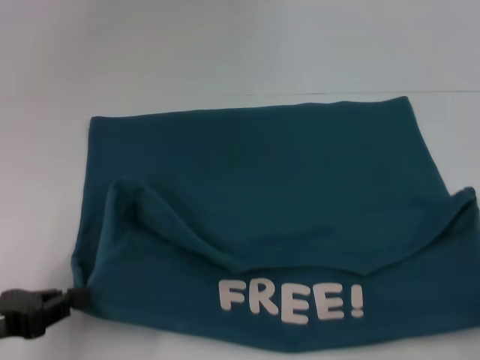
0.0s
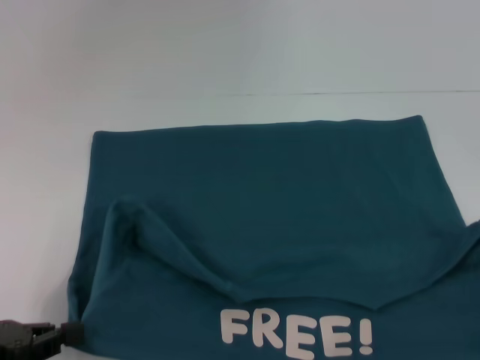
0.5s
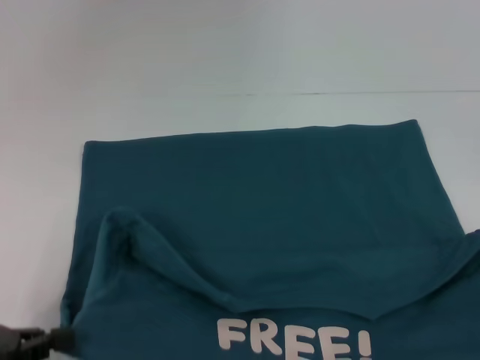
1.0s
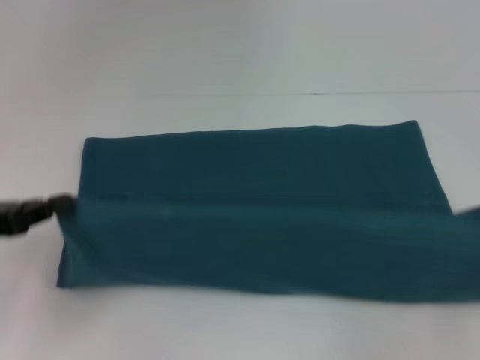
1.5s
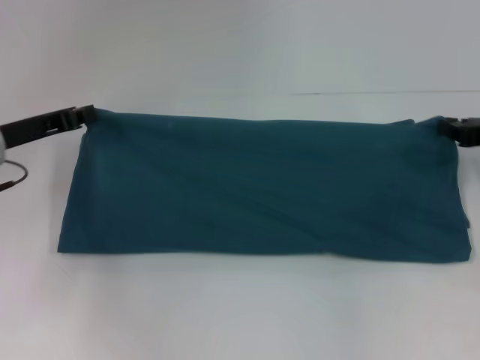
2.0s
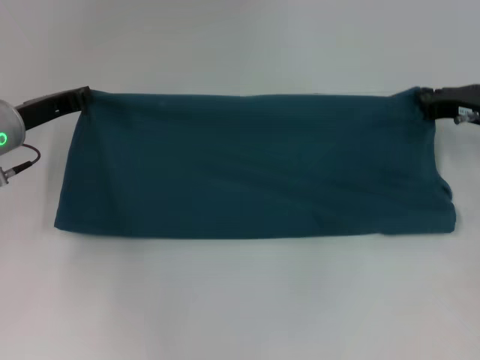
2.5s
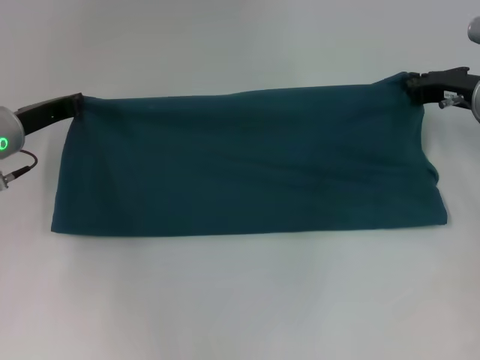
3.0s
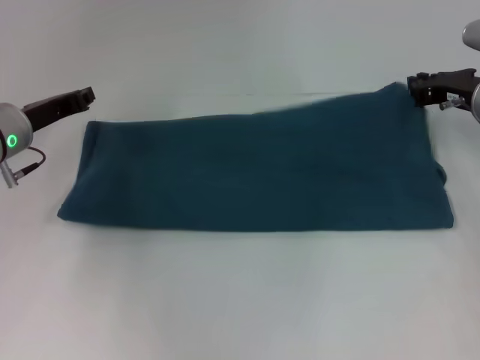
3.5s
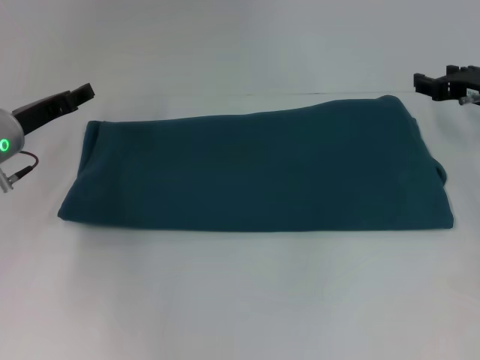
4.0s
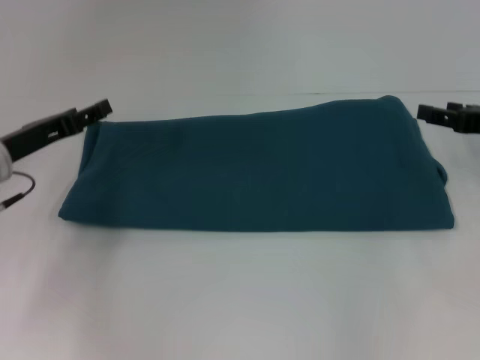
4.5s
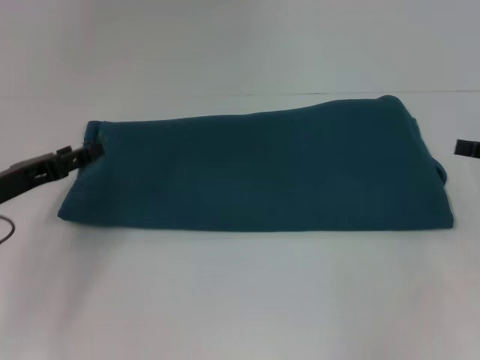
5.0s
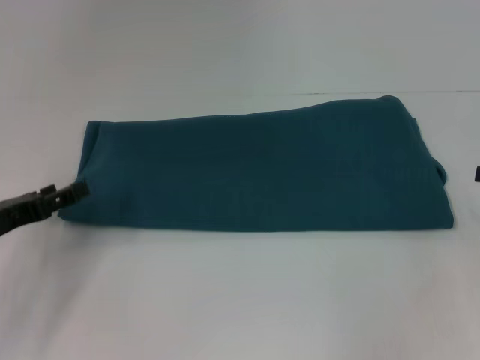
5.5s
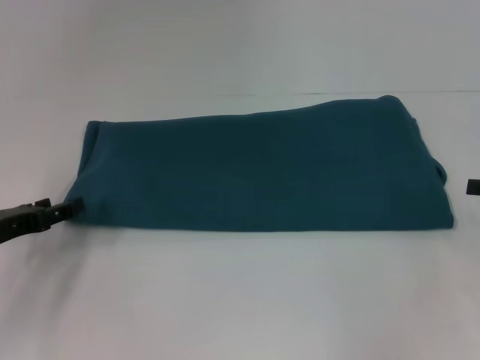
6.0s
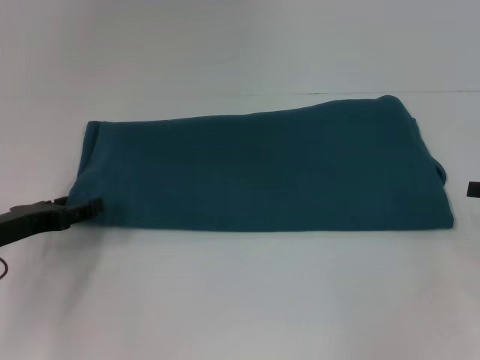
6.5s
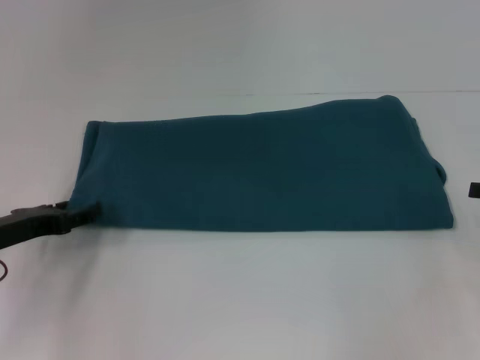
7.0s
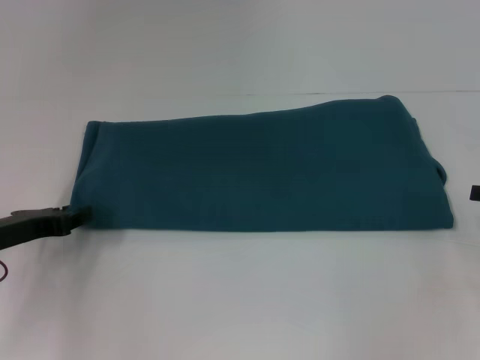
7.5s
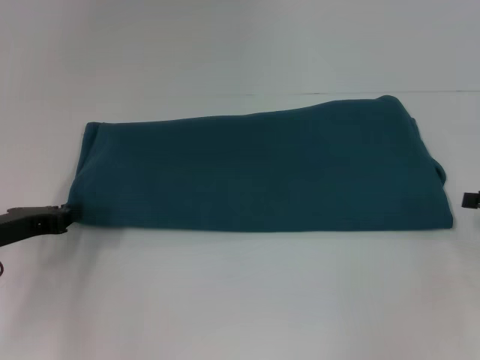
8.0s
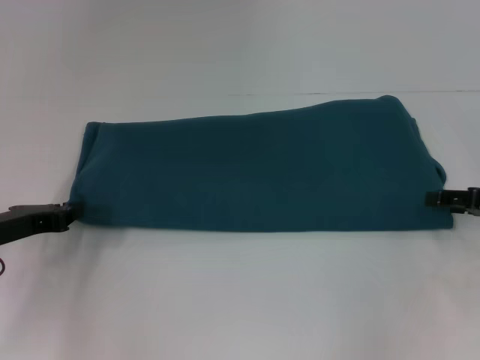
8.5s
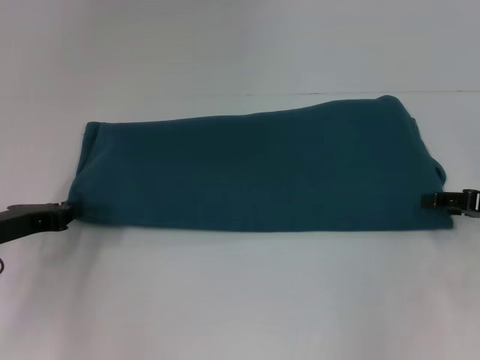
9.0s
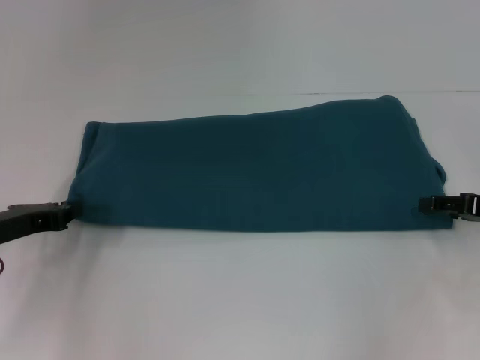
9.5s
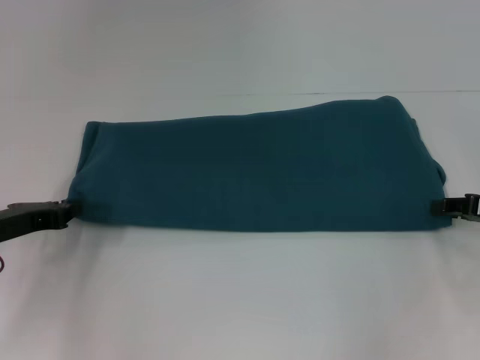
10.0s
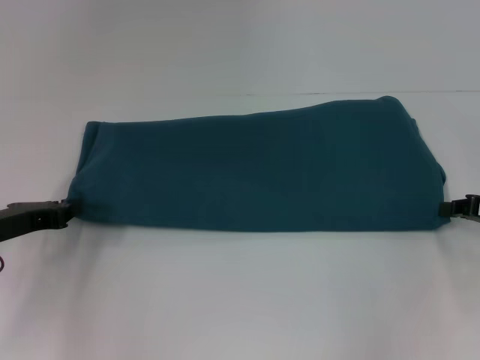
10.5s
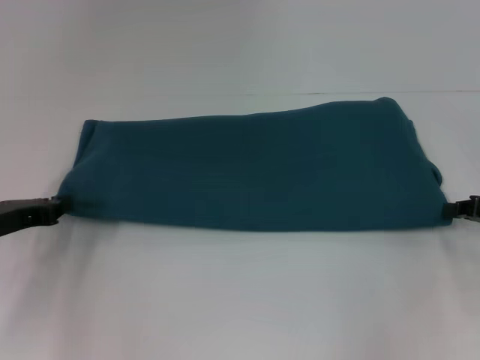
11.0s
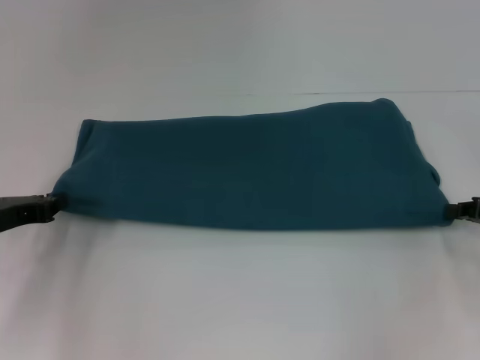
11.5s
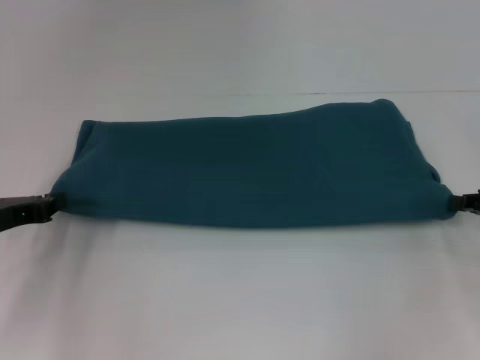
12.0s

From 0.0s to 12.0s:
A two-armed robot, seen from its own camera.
Step, from 1.0s to 3.5s: Fold the clothes to the right.
From 0.0s to 2.0s: The two grippers go approximately 15 cm forward.
From 2.0s to 4.0s: The right gripper moves forward, approximately 5 cm, and opens its fingers. The left gripper opens its fingers.
From 4.0s to 6.0s: The right gripper shifts roughly 15 cm backward and to the right; the left gripper is displaced backward by about 10 cm.
From 6.0s to 8.0s: The left gripper closes its fingers.
From 8.0s to 10.0s: The grippers stay close to where they were, moving slightly.
From 10.0s to 12.0s: The right gripper closes up.

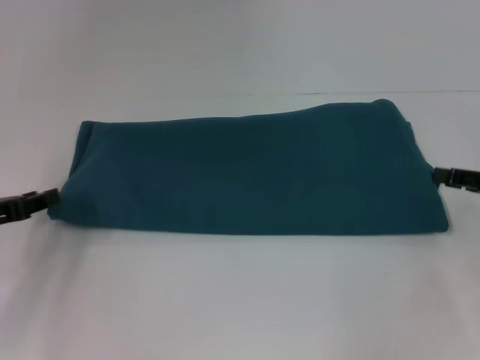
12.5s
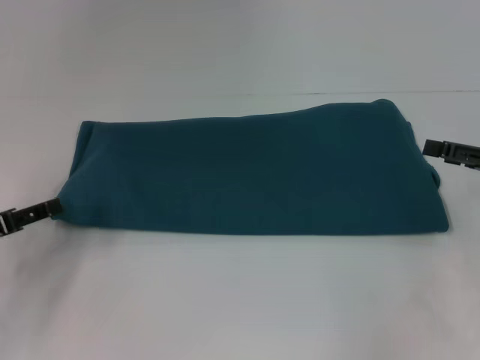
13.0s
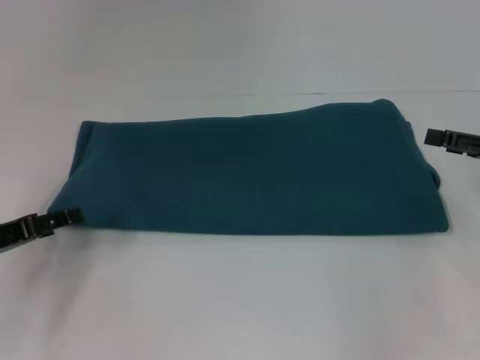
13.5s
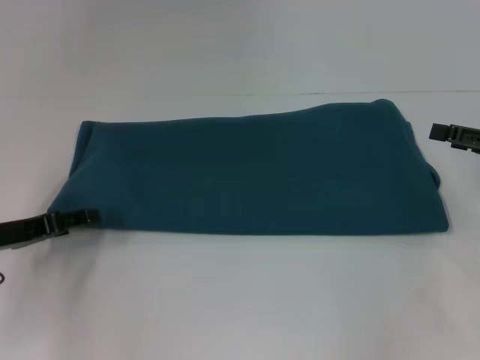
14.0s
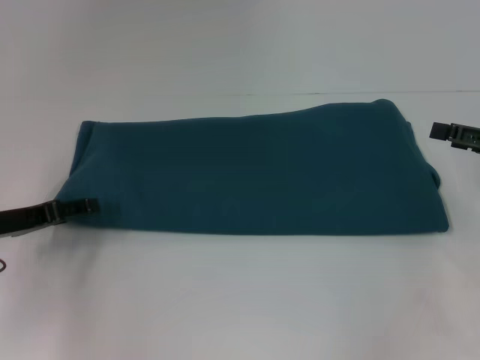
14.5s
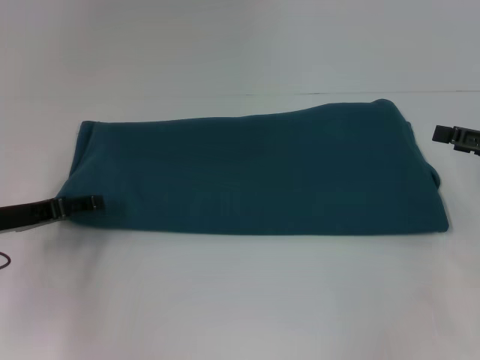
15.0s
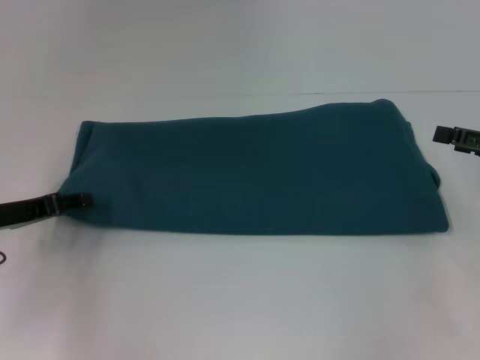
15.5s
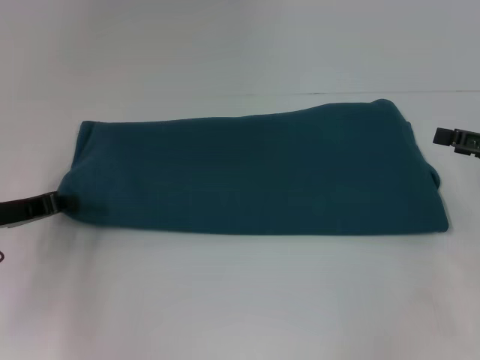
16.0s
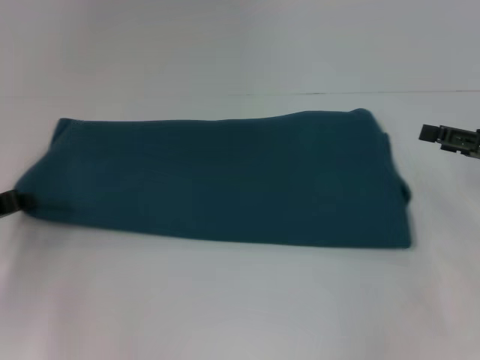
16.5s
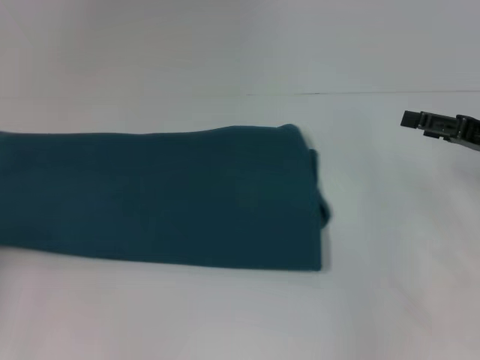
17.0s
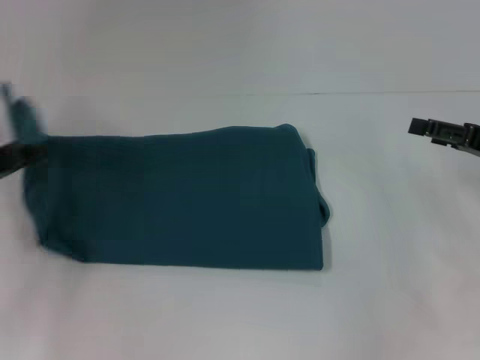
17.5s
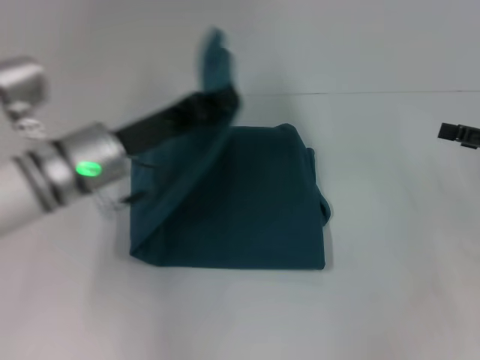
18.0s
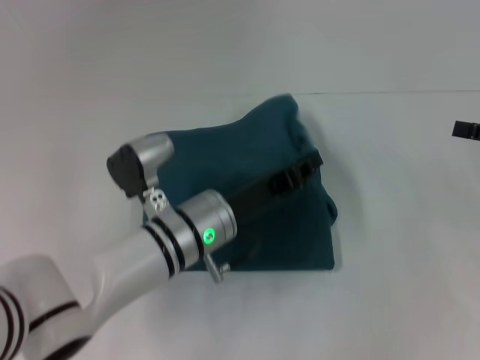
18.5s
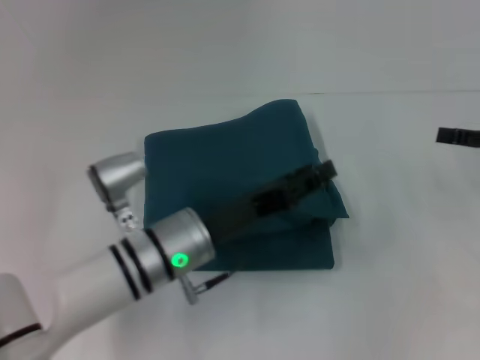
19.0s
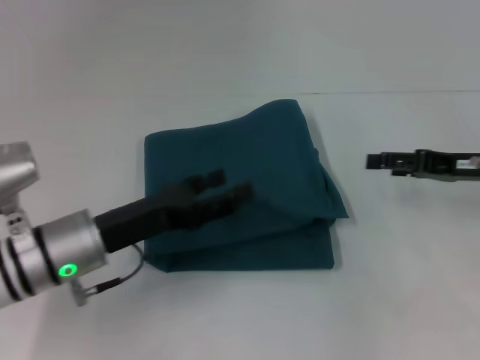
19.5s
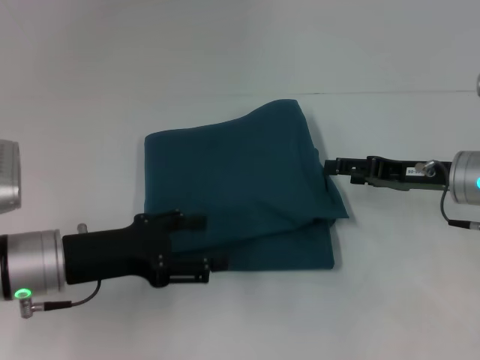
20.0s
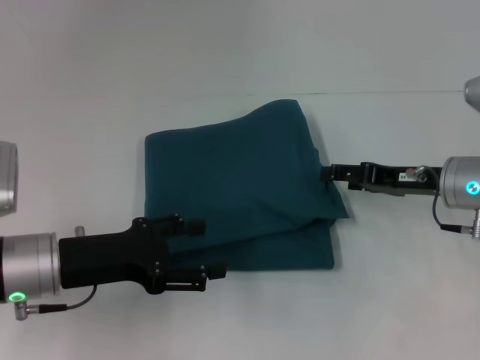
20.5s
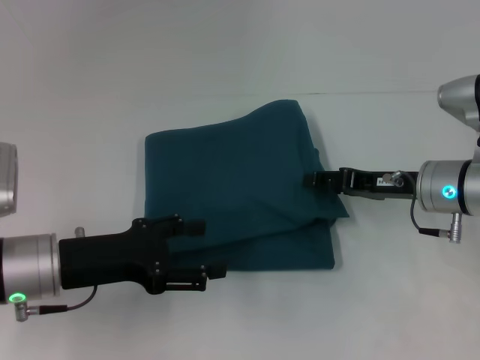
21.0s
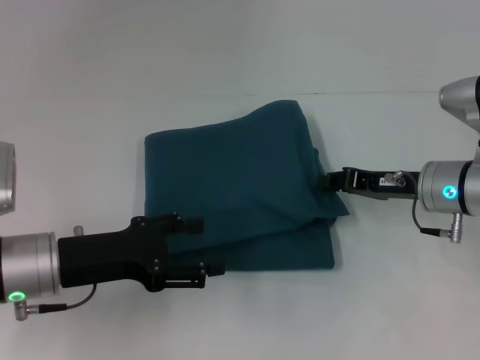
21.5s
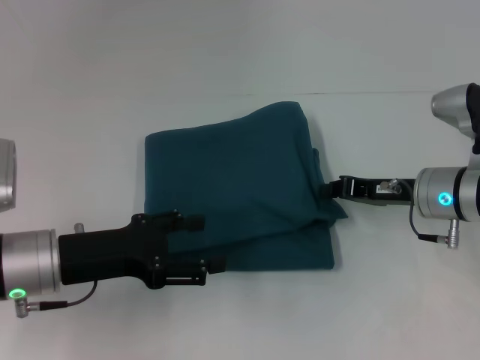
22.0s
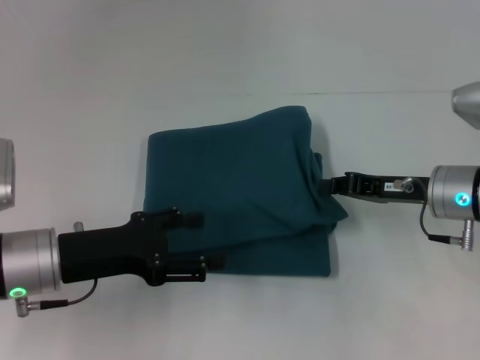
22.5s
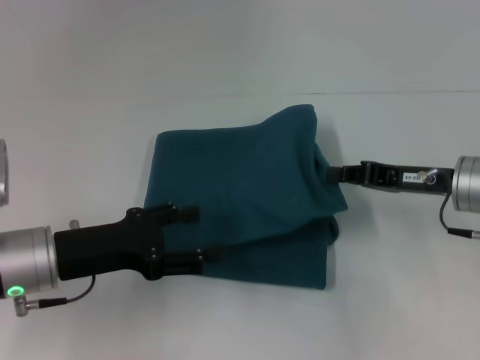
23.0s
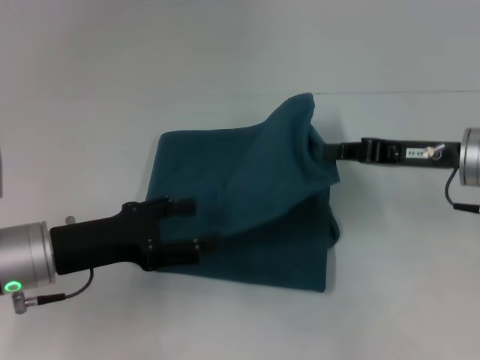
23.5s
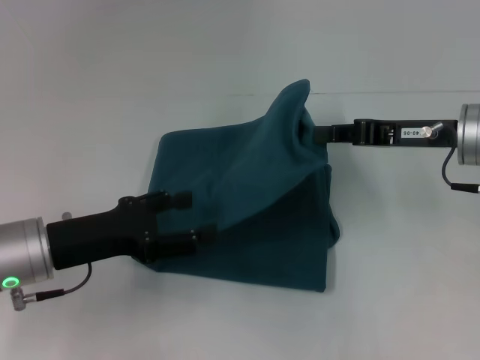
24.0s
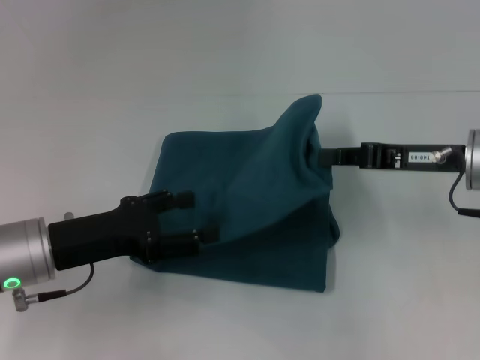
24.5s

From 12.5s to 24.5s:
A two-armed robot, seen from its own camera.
Step, from 12.5s to 18.5s: Fold the clothes to the left.
From 12.5s to 14.5s: The right gripper opens. Meanwhile the left gripper opens up.
From 14.5s to 16.5s: The left gripper closes up.
From 16.5s to 18.5s: The left gripper heads to the right, covering approximately 30 cm.
From 18.5s to 20.5s: The right gripper travels to the left and downward by roughly 15 cm, while the left gripper moves to the left, about 15 cm, and opens up.
From 20.5s to 22.5s: The right gripper closes.
From 22.5s to 24.5s: The right gripper heads upward, covering about 5 cm.

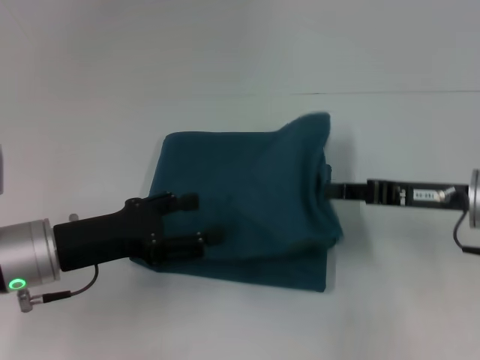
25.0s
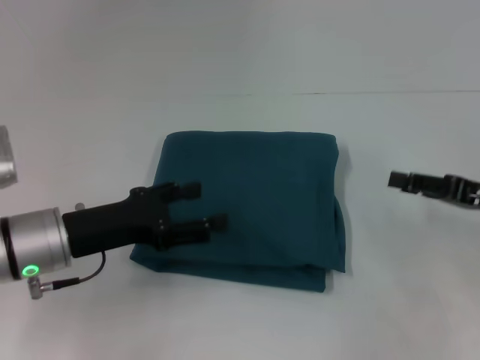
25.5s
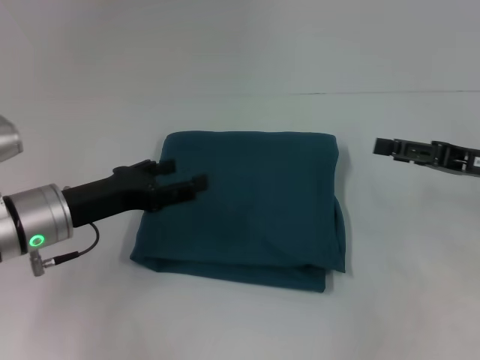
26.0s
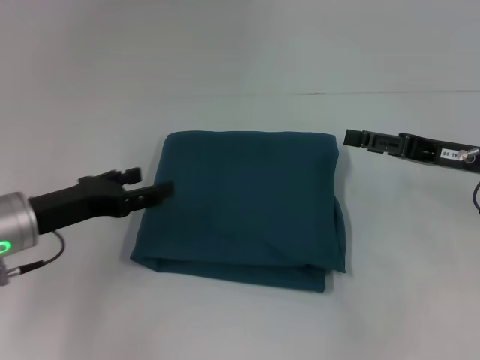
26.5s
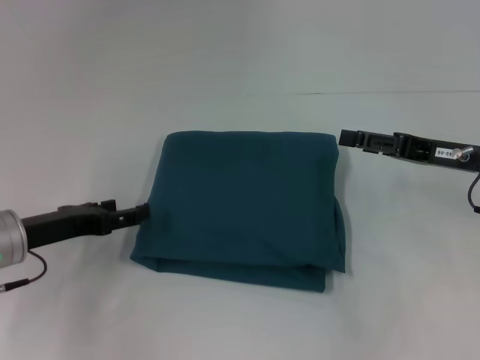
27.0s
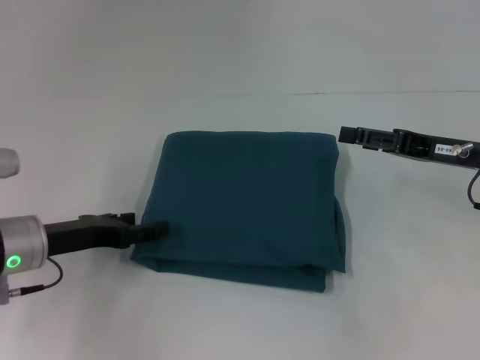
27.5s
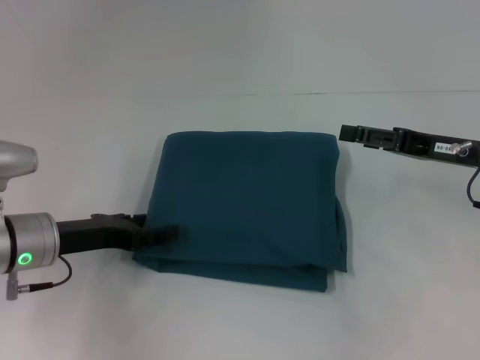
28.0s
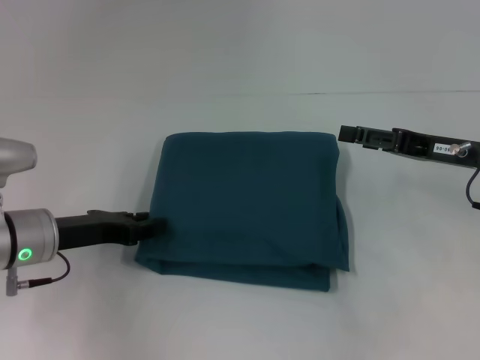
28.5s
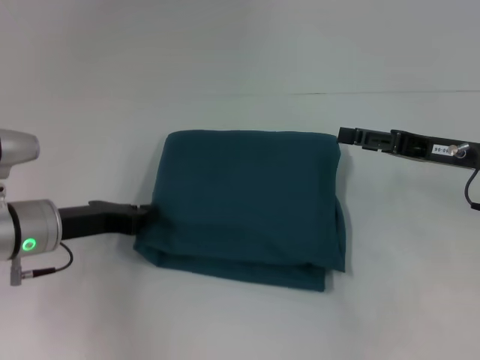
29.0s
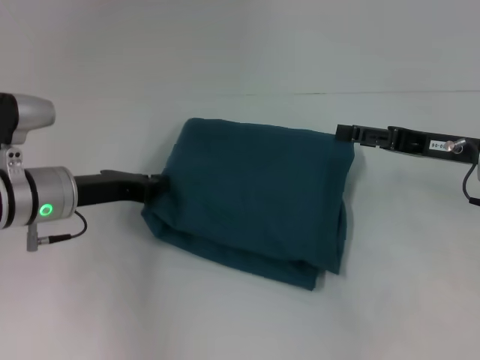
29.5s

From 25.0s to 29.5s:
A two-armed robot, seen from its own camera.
From 25.0s to 27.0s: The left gripper shifts by approximately 5 cm; the right gripper opens up.
From 27.0s to 29.5s: The left gripper changes place by some 5 cm, and closes up.
